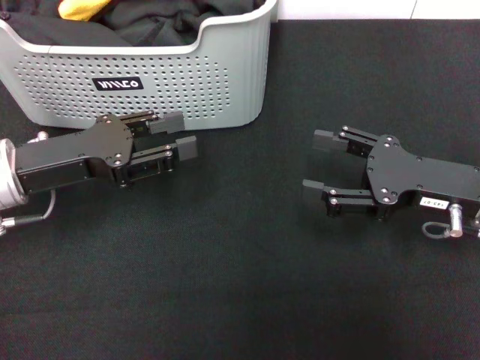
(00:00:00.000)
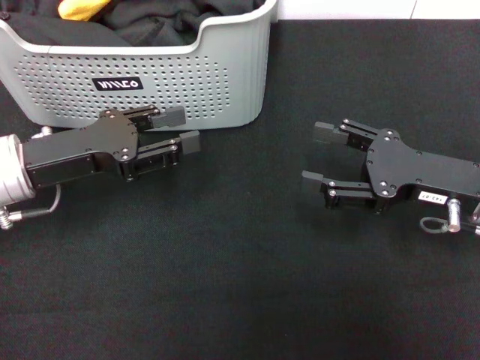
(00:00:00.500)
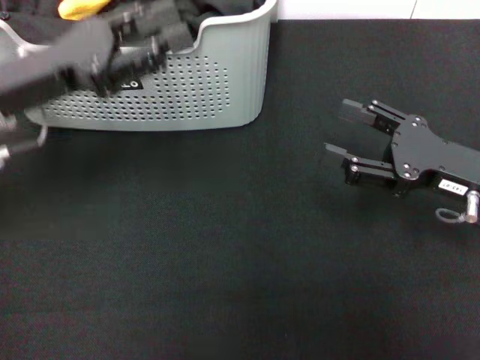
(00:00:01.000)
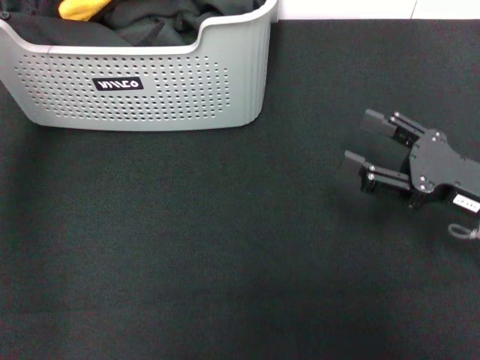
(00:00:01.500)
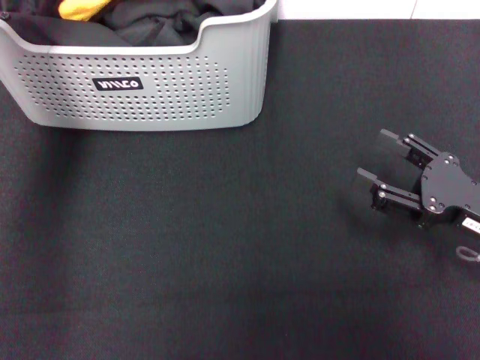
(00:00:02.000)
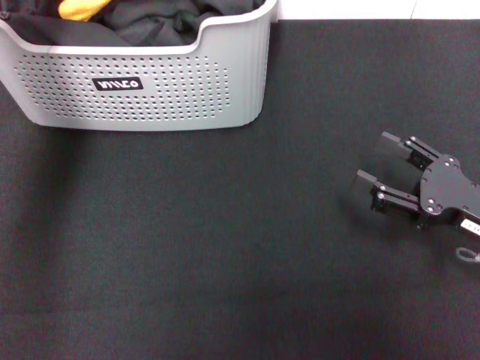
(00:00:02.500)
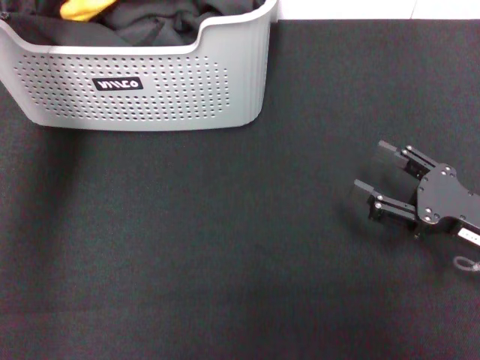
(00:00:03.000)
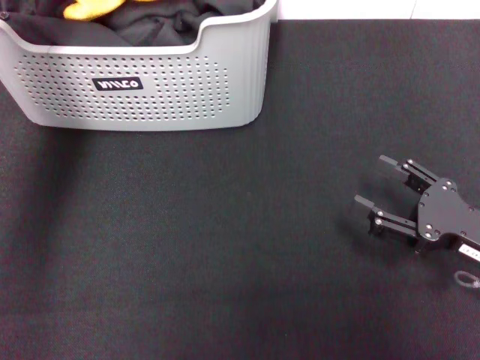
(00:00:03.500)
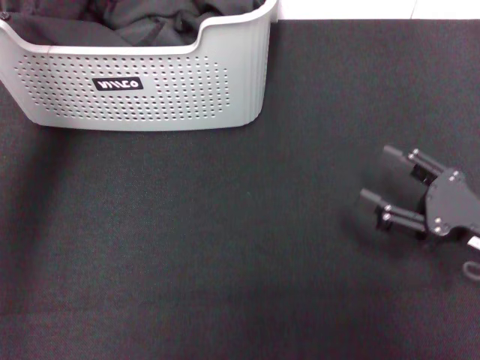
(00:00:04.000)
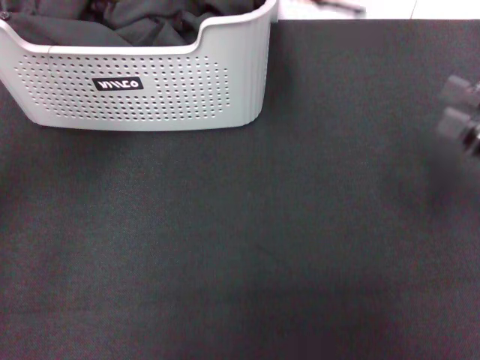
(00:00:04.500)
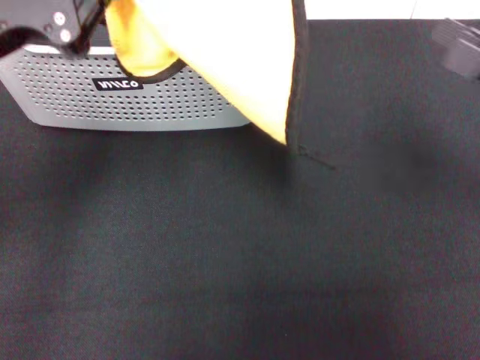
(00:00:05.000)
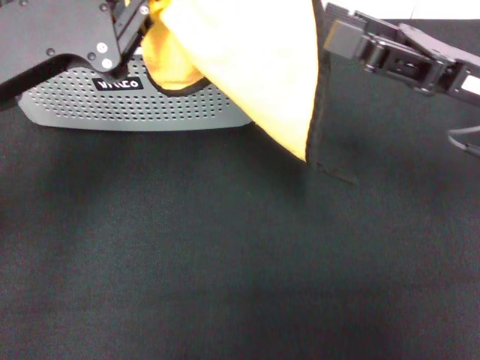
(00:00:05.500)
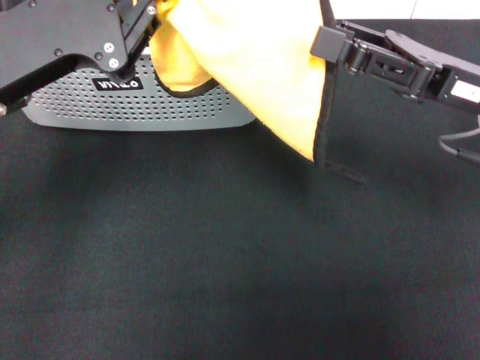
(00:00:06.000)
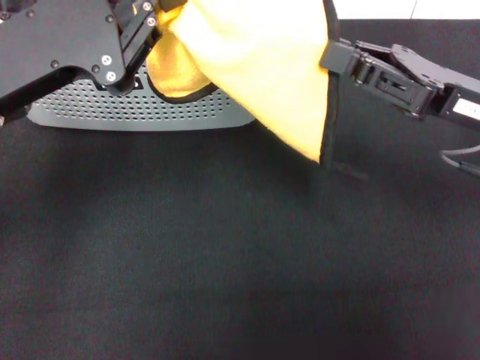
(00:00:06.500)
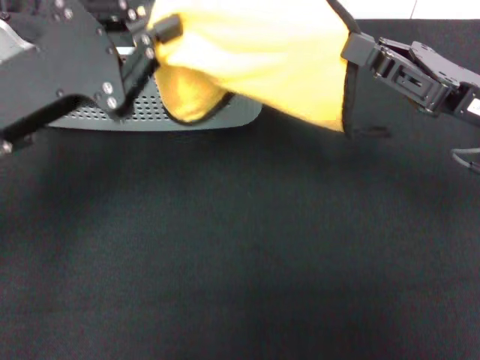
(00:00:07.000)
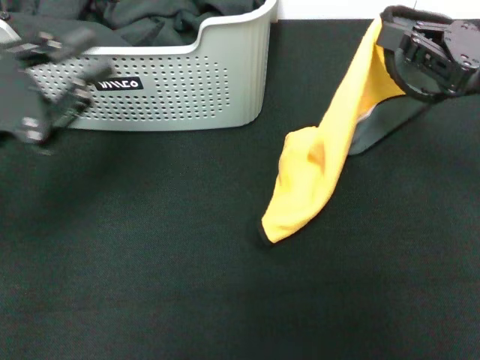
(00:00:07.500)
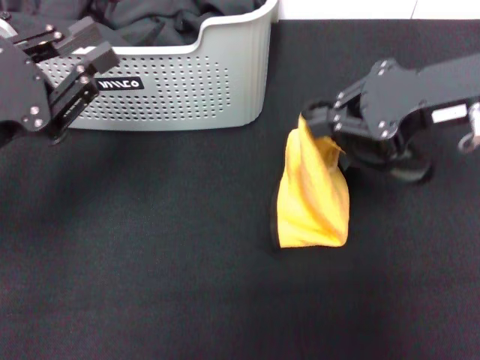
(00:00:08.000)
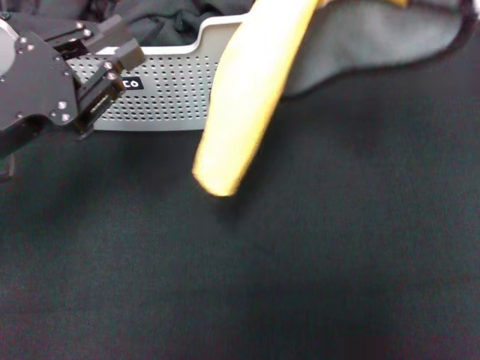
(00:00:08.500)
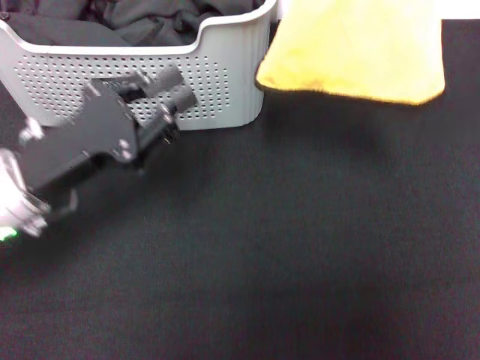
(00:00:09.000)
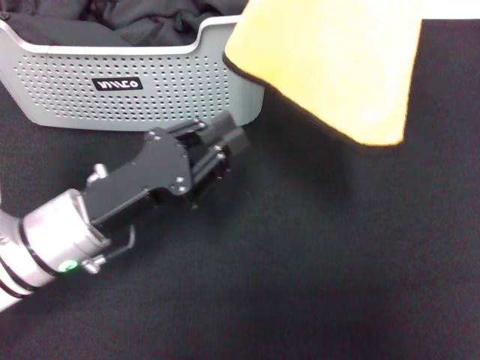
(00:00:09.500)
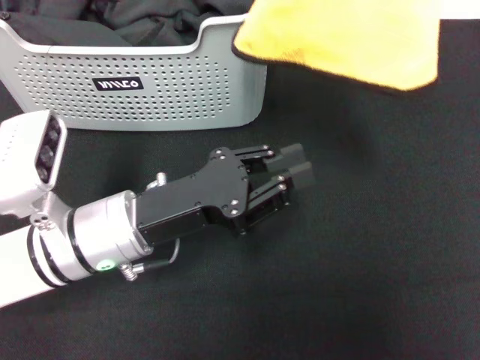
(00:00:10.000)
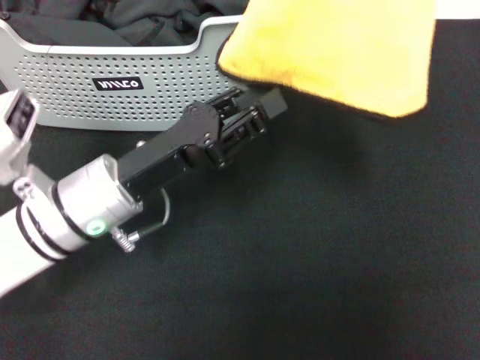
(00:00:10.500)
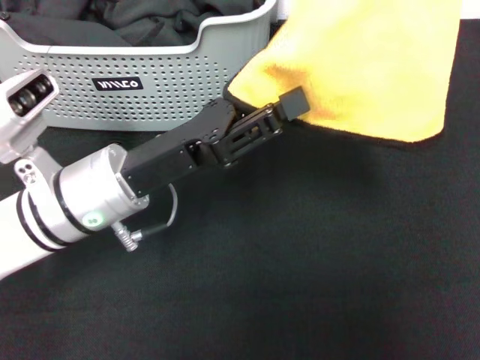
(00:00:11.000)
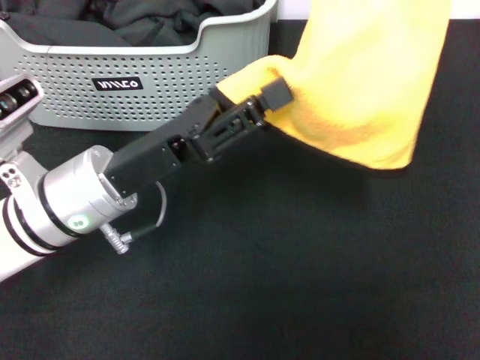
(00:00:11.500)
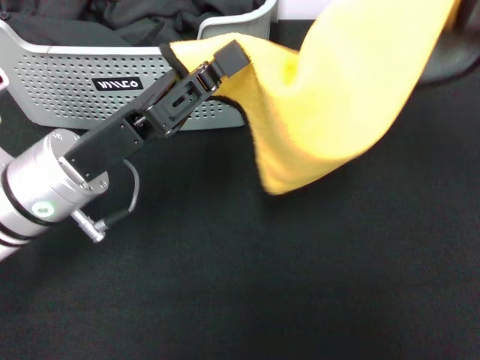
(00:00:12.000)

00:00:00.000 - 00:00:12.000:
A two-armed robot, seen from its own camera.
Task of the whole recording: pick up the towel from the storage box and lay it flat on the black tablecloth.
Step, 00:00:00.000 - 00:00:03.000: Pick up a towel with the left gripper.
Step, 00:00:03.500 - 00:00:06.500: Spread the towel flat with the left gripper.
00:00:00.000 - 00:00:02.000: The left gripper heads upward and forward, covering roughly 20 cm; the right gripper changes place by roughly 5 cm.
00:00:02.000 - 00:00:04.000: The left gripper closes.
00:00:04.000 - 00:00:06.000: The left gripper shifts roughly 10 cm downward and backward; the right gripper is displaced upward, forward and to the left by about 15 cm.
00:00:06.000 - 00:00:08.000: The right gripper is displaced upward by roughly 10 cm, and closes its fingers; the left gripper moves some 10 cm, and opens up.
00:00:08.000 - 00:00:10.000: The left gripper travels to the right and downward by approximately 15 cm. Meanwhile the right gripper is displaced upward by roughly 10 cm.
00:00:10.000 - 00:00:12.000: The left gripper changes place by about 5 cm. Meanwhile the right gripper goes roughly 15 cm downward.

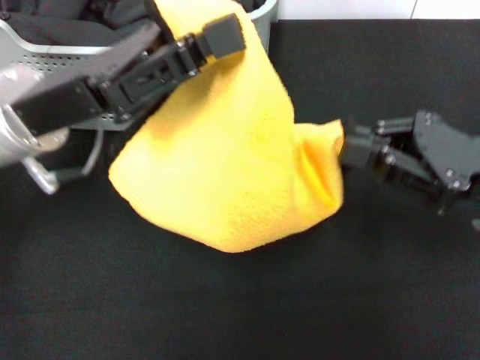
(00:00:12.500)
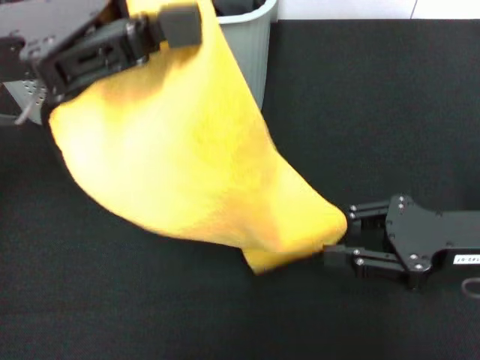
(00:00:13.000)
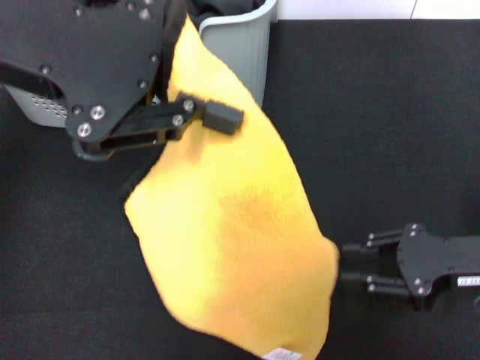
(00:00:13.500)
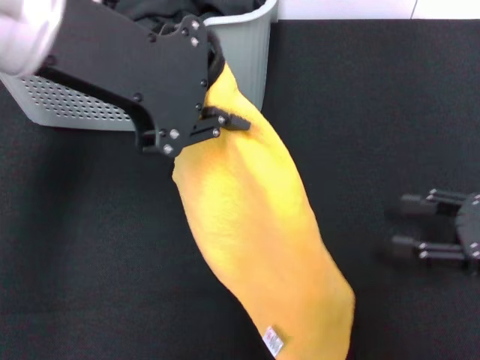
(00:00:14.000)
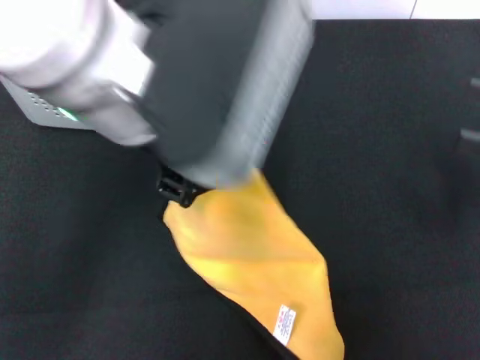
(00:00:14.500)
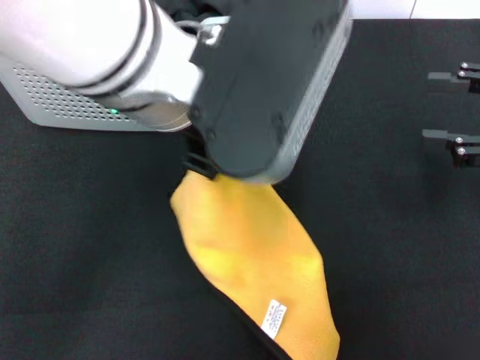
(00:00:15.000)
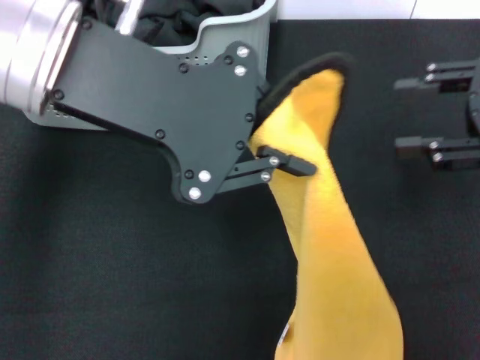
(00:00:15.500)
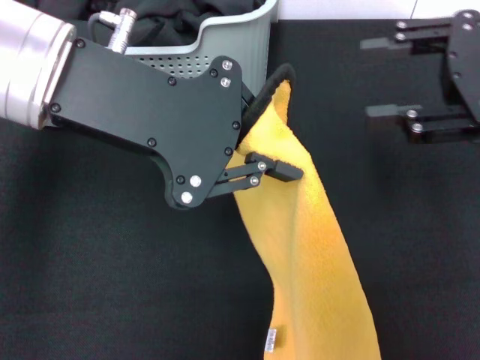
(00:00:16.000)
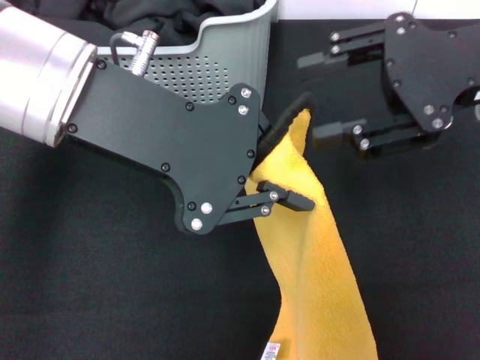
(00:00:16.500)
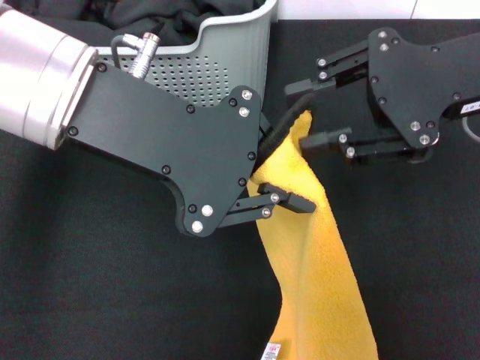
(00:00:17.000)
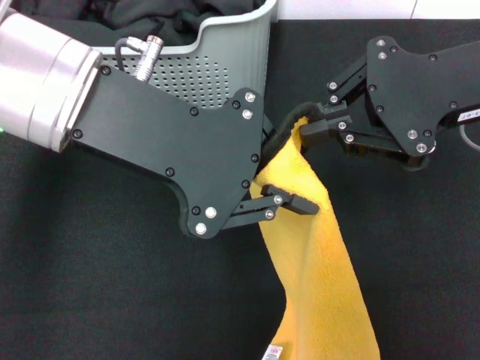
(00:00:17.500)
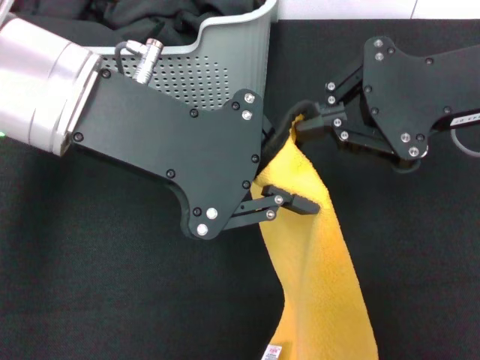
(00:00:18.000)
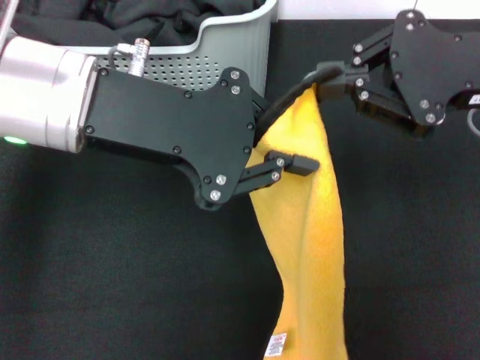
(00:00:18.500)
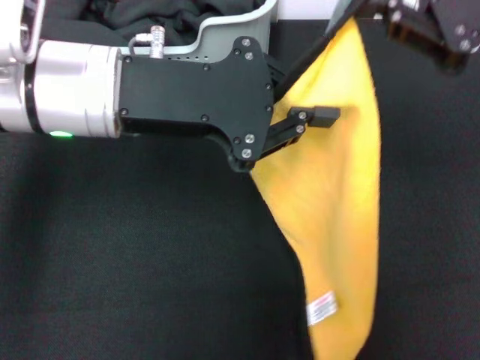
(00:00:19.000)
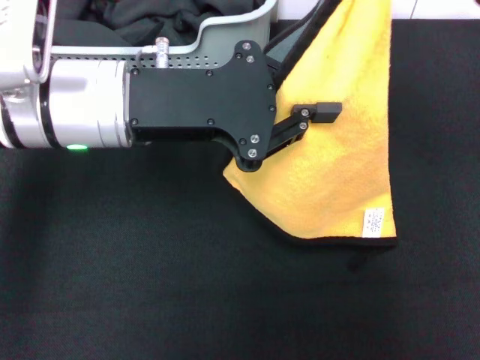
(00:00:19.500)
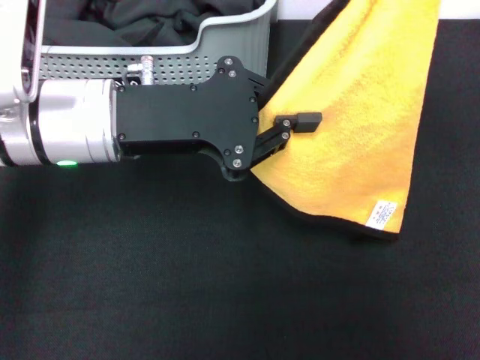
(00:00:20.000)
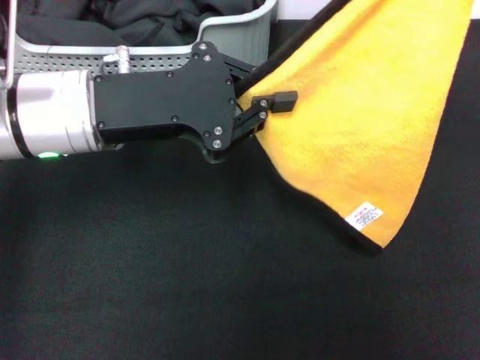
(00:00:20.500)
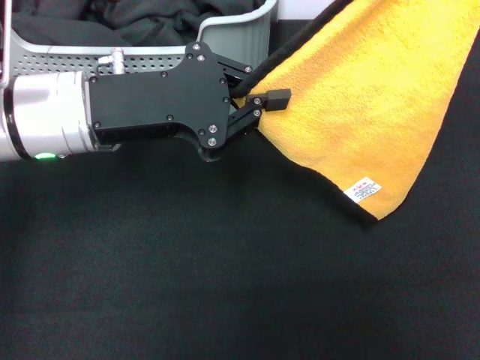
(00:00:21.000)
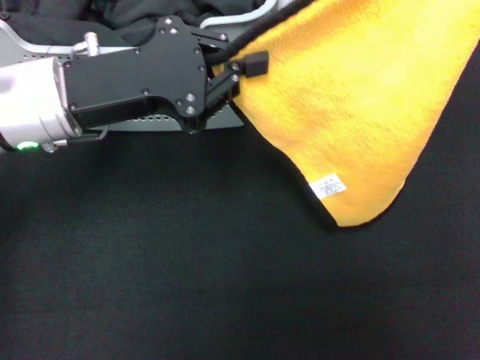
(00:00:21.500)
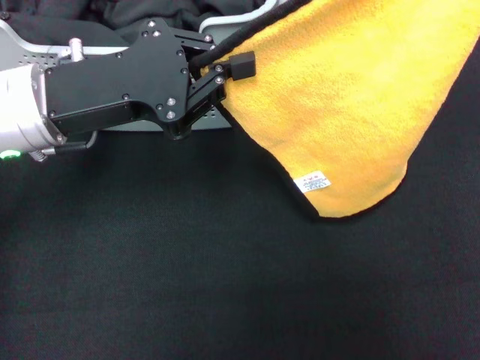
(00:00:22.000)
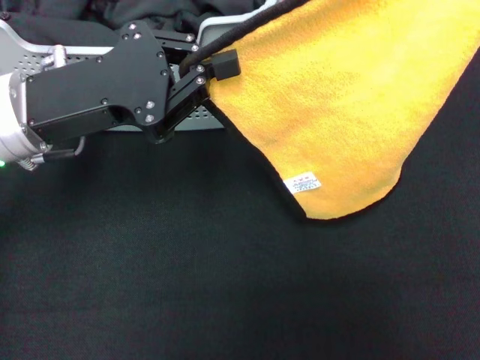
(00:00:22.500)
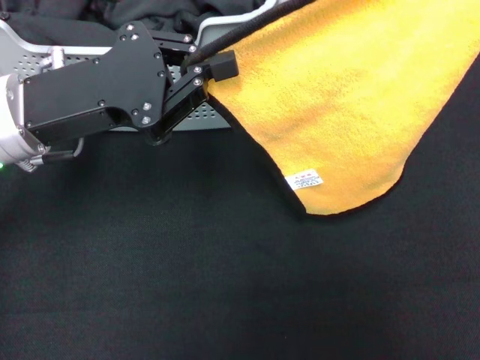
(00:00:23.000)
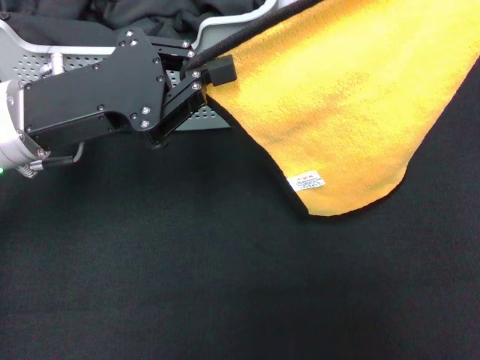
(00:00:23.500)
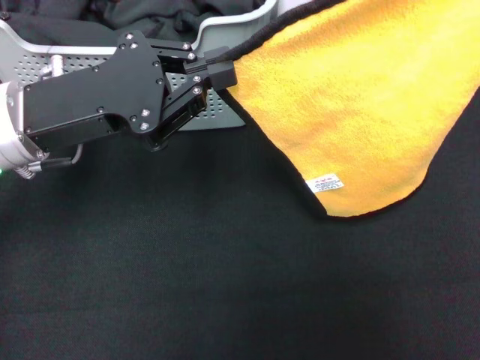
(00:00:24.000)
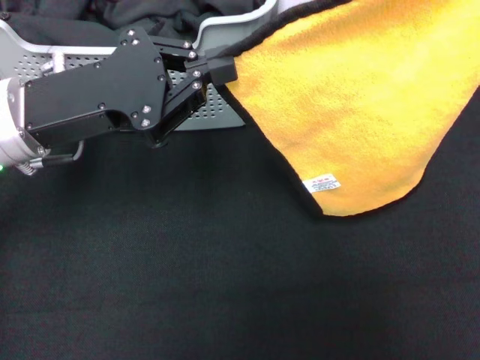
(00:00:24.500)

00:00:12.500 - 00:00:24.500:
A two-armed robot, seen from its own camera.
Task of the whole recording: pick up the towel from the storage box and lay it flat on the black tablecloth.
00:00:12.500 - 00:00:14.500: The left gripper heads upward and to the right, covering about 15 cm. The right gripper moves to the right, approximately 10 cm, and opens.
00:00:14.500 - 00:00:16.500: The right gripper heads to the left, upward and forward, covering roughly 15 cm, while the left gripper travels to the left by some 5 cm.
00:00:16.500 - 00:00:18.500: The right gripper closes its fingers.
00:00:18.500 - 00:00:20.500: The right gripper is displaced to the right and upward by about 10 cm, while the left gripper shifts approximately 5 cm downward.
00:00:22.500 - 00:00:24.500: Both grippers stay about where they are.

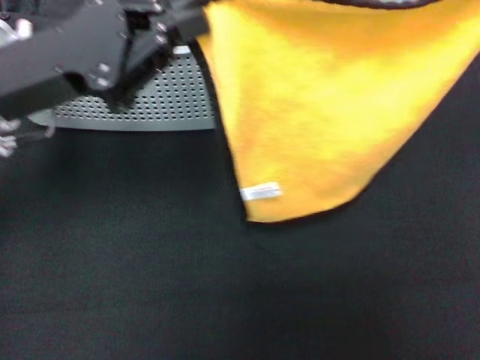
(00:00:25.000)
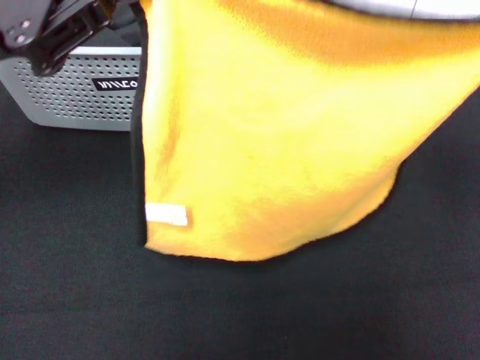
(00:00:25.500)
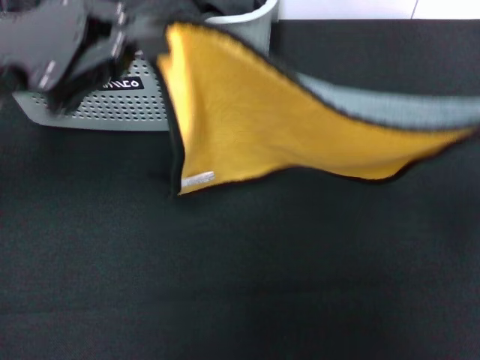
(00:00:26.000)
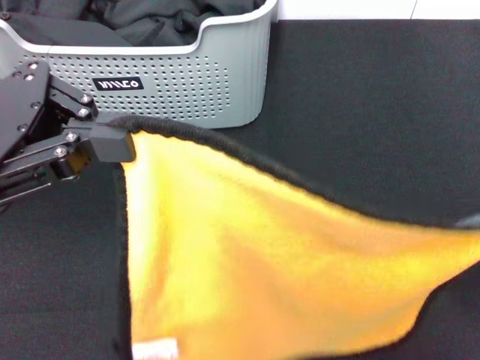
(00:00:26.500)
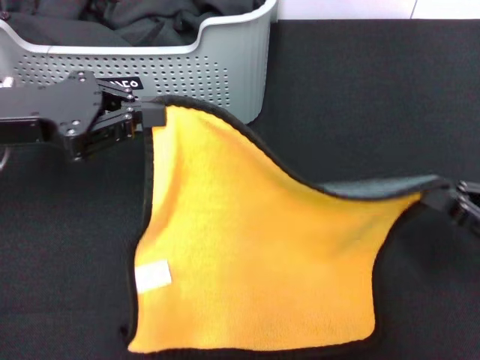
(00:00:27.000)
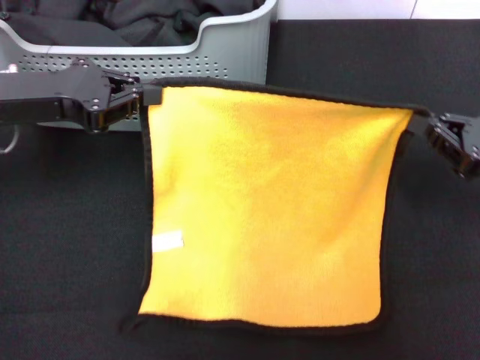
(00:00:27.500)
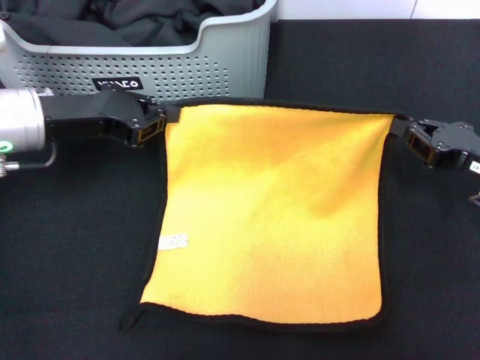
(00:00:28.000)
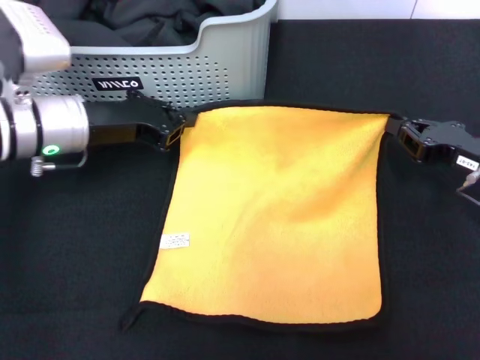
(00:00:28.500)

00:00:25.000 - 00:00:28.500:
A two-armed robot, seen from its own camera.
Task of the whole recording: pick up the towel from the storage box and lay it flat on the black tablecloth.
00:00:25.000 - 00:00:27.000: The left gripper shifts by approximately 5 cm; the right gripper goes approximately 20 cm downward.
00:00:27.000 - 00:00:28.500: The right gripper heads forward, covering some 10 cm. The left gripper shifts some 10 cm downward, forward and to the right.
